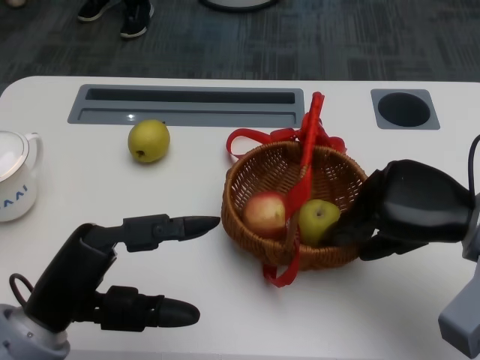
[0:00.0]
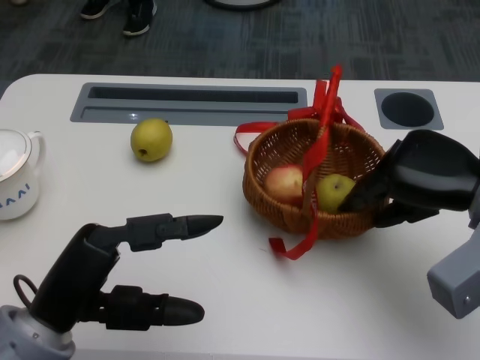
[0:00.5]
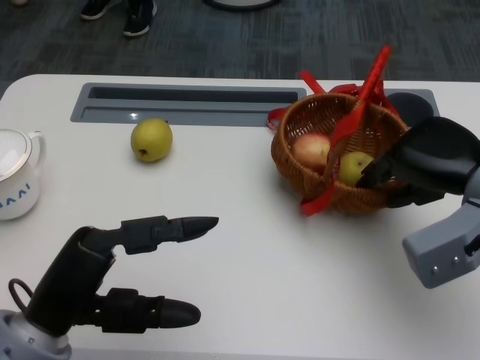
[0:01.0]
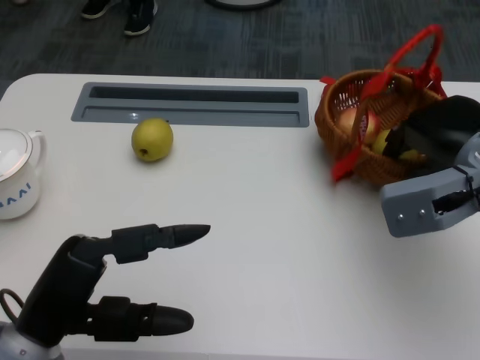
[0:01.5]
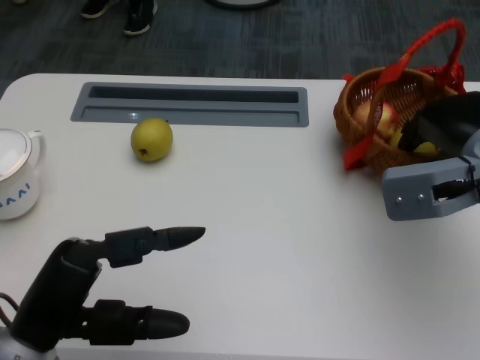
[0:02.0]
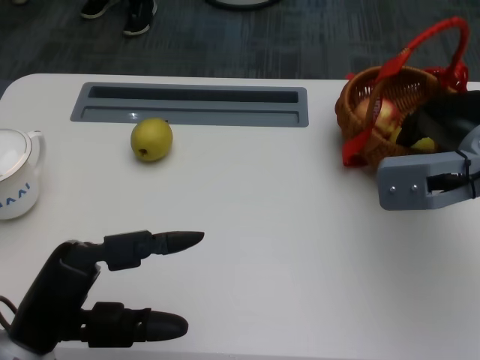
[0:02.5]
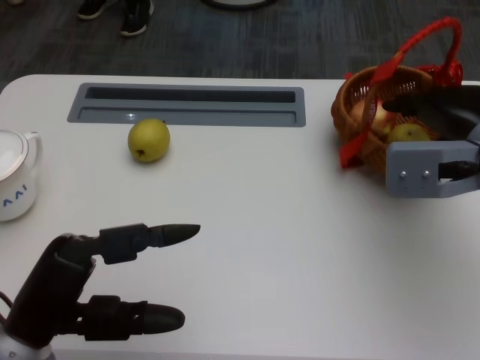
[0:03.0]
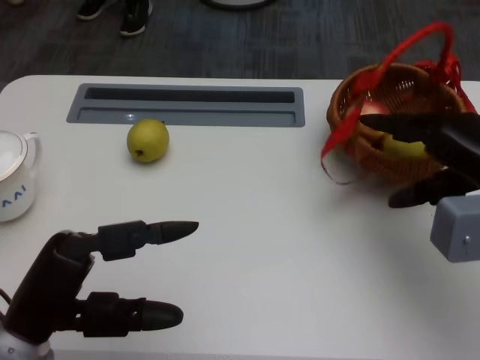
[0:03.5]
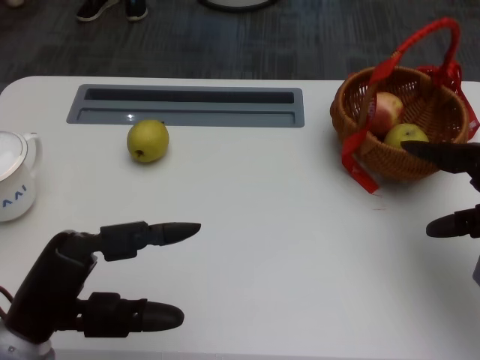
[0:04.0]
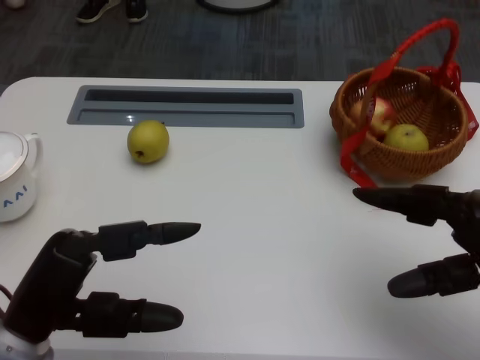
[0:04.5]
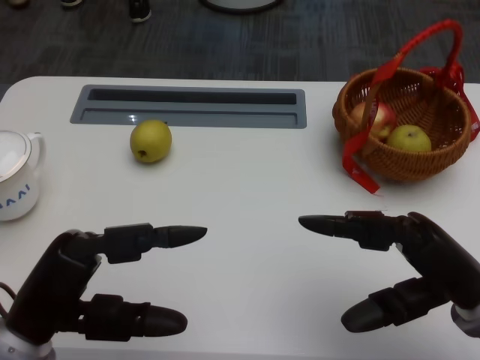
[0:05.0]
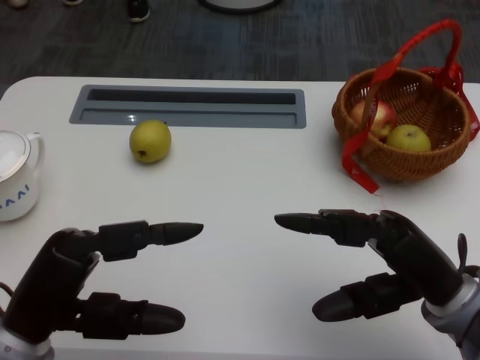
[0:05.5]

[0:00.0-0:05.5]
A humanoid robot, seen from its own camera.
0:00.0 to 0:02.0: The right hand shifts roughly 5 cm forward.
0:03.5 to 0:05.5: The right hand shifts some 10 cm backward and to the left.
